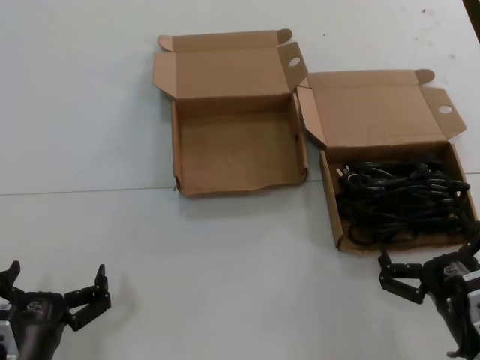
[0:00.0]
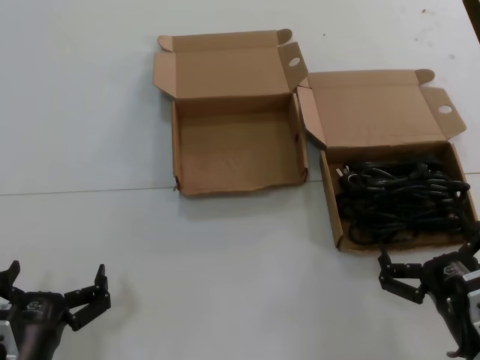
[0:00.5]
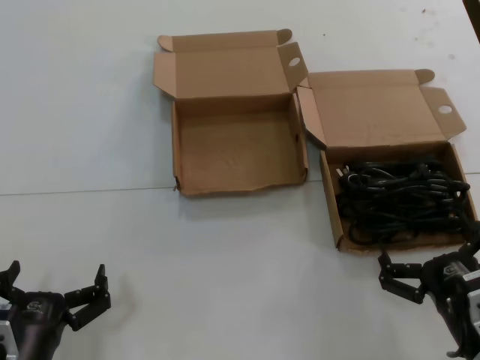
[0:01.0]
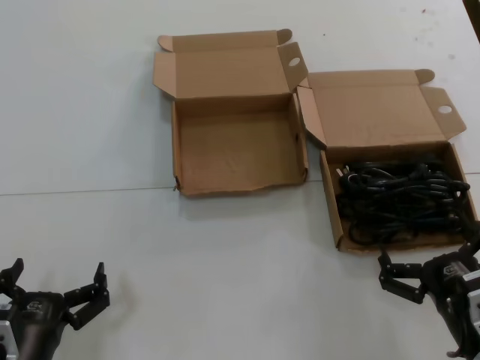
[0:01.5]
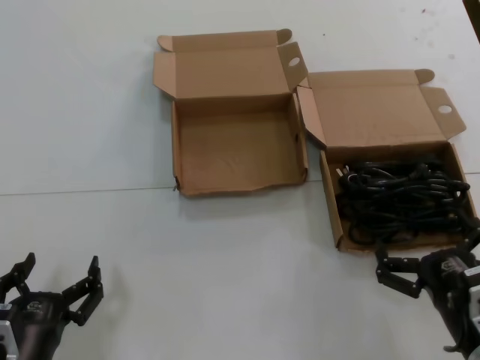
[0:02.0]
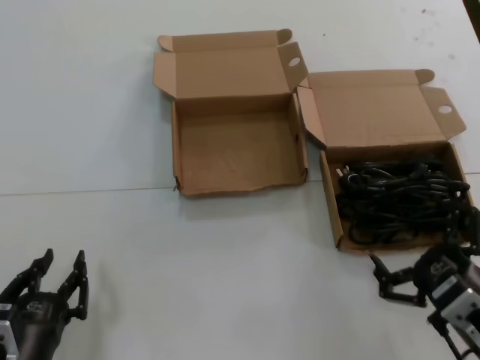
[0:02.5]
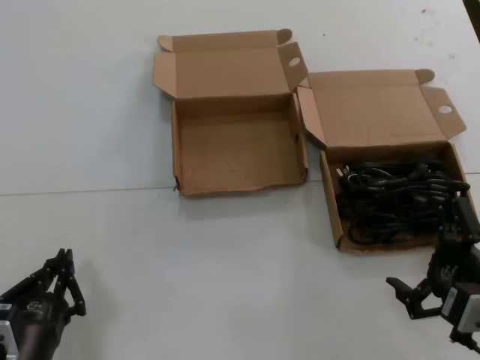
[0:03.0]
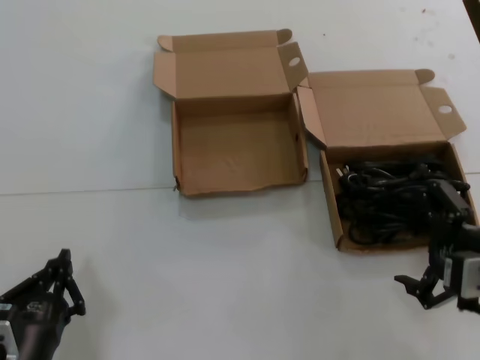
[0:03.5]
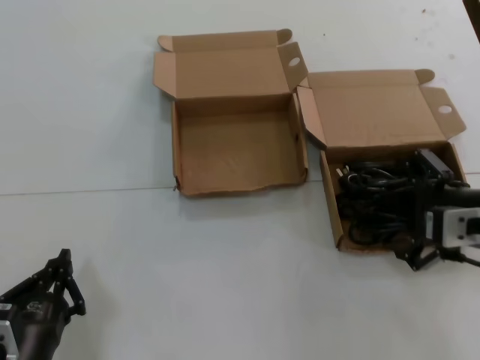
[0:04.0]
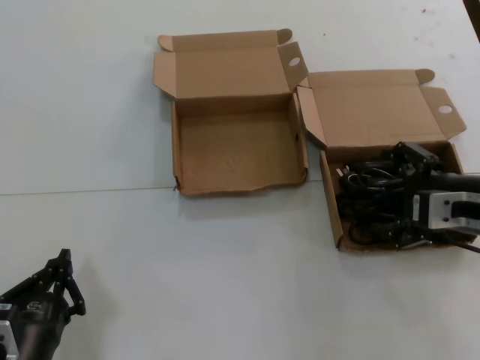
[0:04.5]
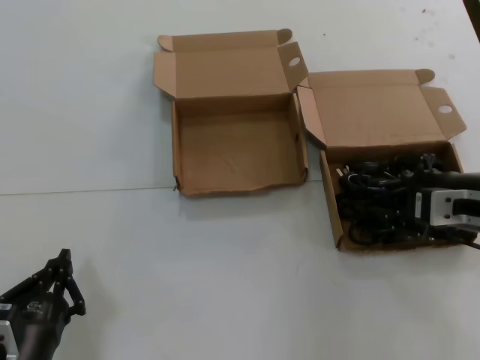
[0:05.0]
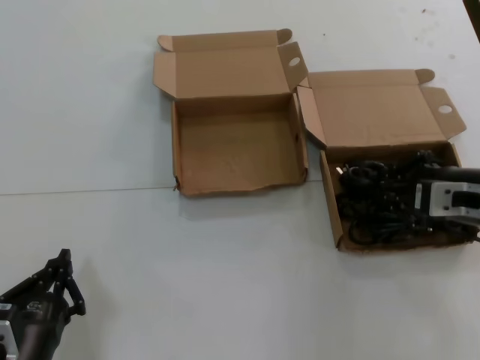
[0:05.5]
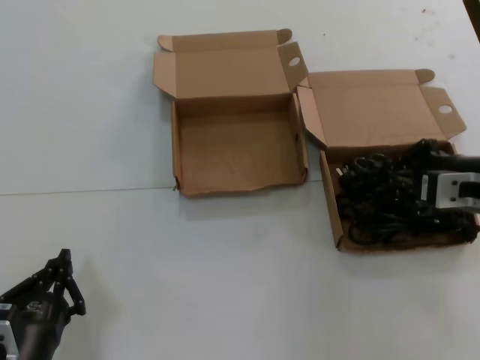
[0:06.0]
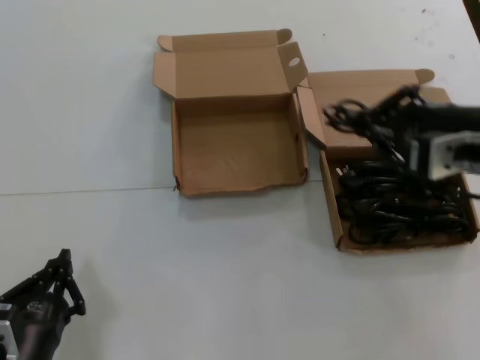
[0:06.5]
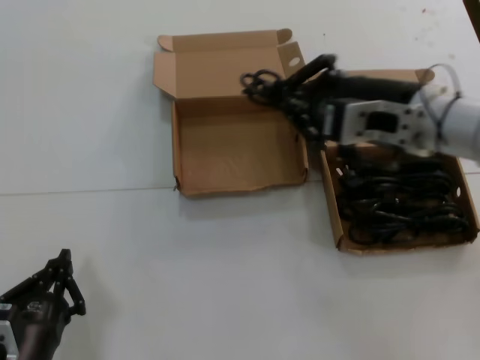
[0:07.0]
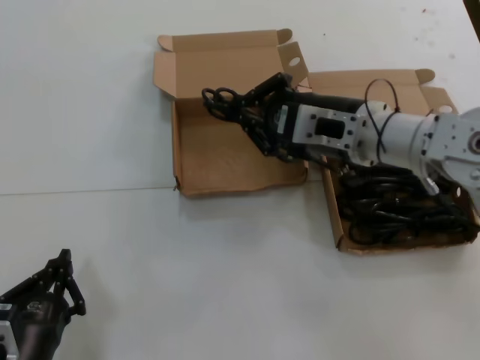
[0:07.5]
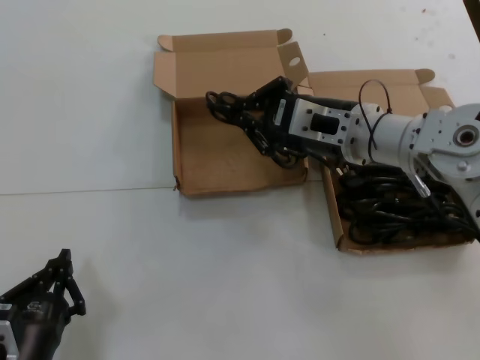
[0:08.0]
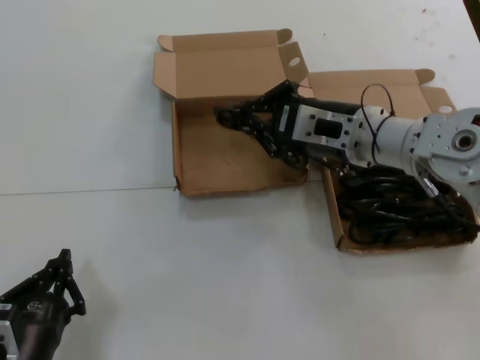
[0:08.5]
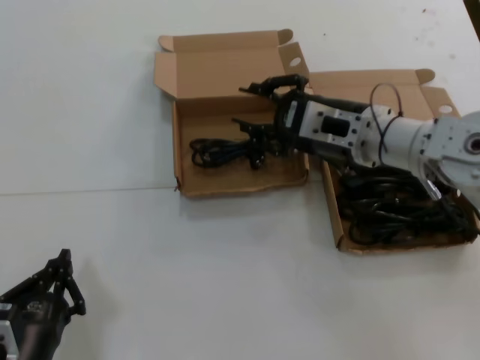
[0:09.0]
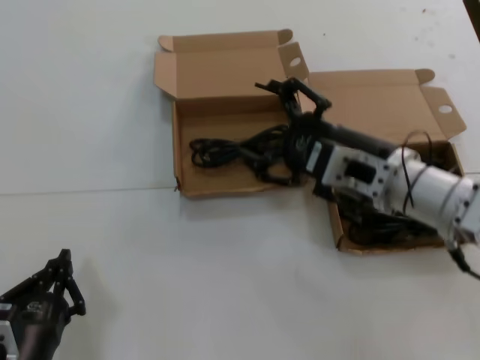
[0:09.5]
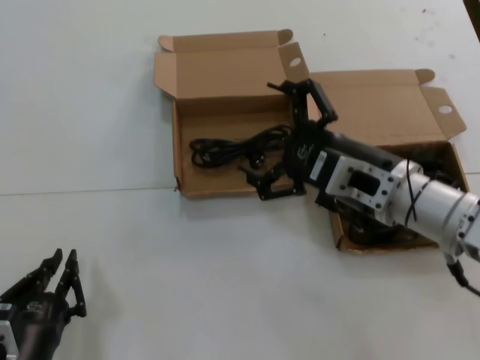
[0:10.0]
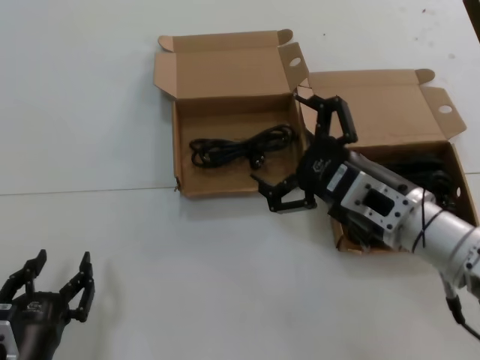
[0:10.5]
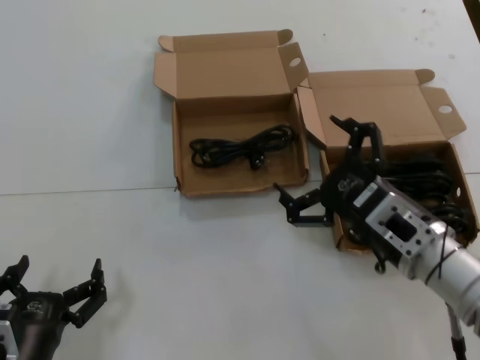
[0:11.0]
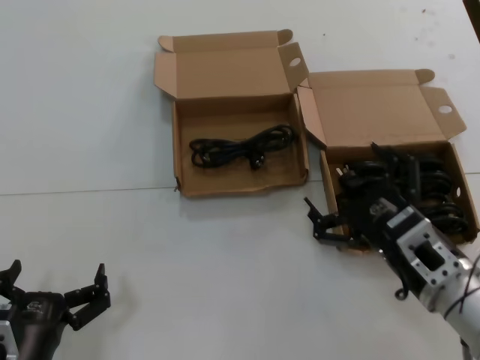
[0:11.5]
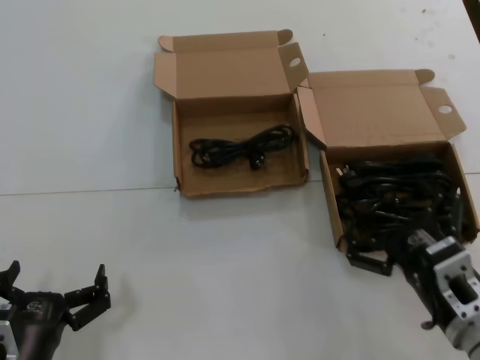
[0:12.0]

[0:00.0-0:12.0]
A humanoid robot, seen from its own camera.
Task of the whole recording: take the parts from the box containing them and put them into an empty box.
Step, 0:00.0 to 0:05.0: Grasp the data cable.
Step, 0:05.5 to 0:08.5: Place the data cable in the another box.
0:00.0 to 0:02.0: Both hands stay put.
0:02.0 to 0:04.0: The right hand is displaced upward and forward by about 20 cm.
0:04.0 to 0:06.0: The right hand travels forward by some 5 cm.
0:06.0 to 0:08.0: The right hand travels to the left by about 15 cm.
0:08.0 to 0:10.0: The right hand shifts roughly 10 cm backward.
0:10.0 to 0:12.0: The right hand is displaced downward and backward by about 15 cm.

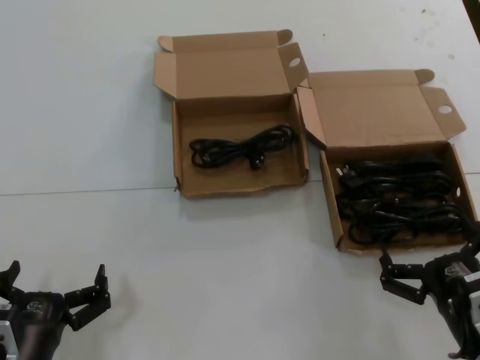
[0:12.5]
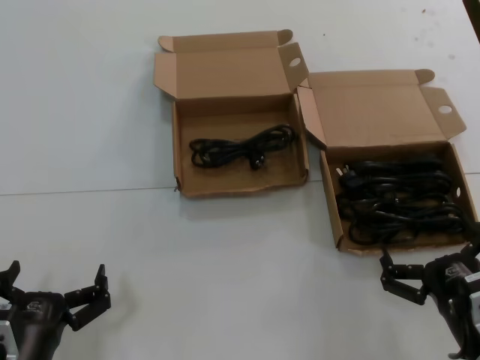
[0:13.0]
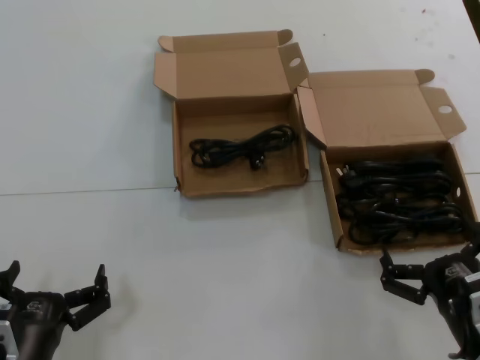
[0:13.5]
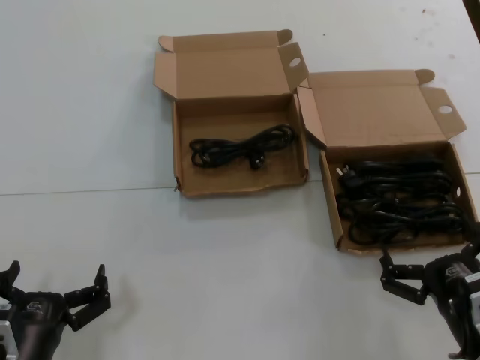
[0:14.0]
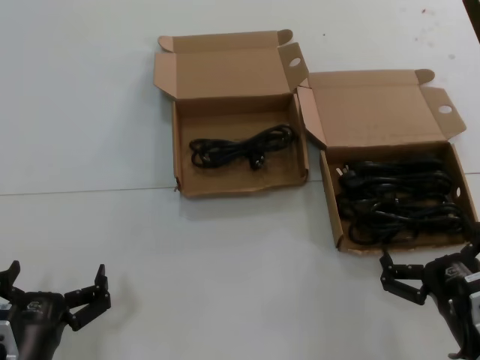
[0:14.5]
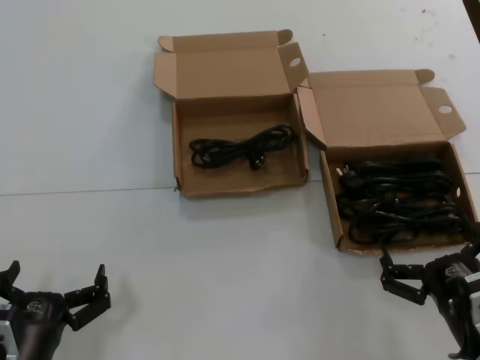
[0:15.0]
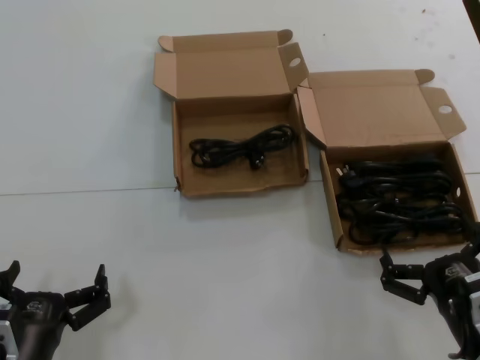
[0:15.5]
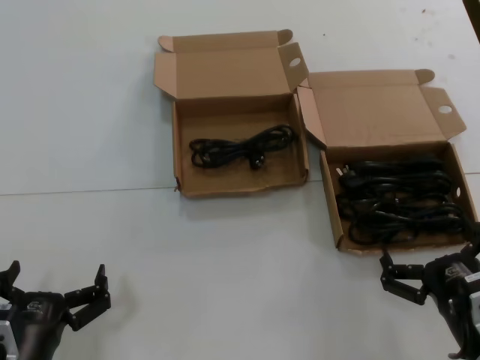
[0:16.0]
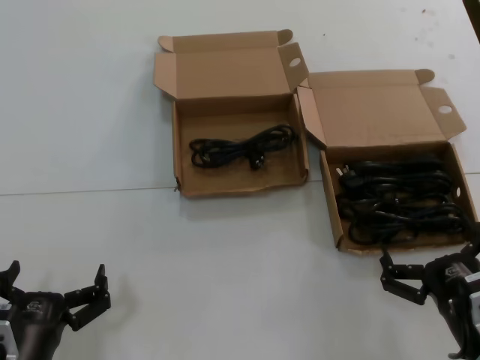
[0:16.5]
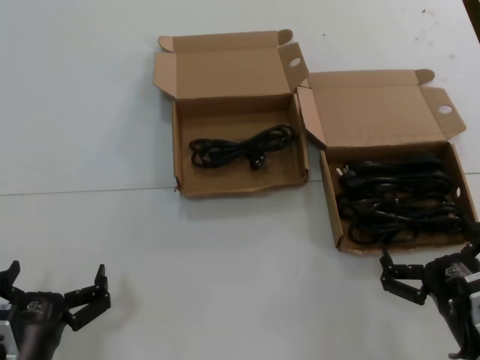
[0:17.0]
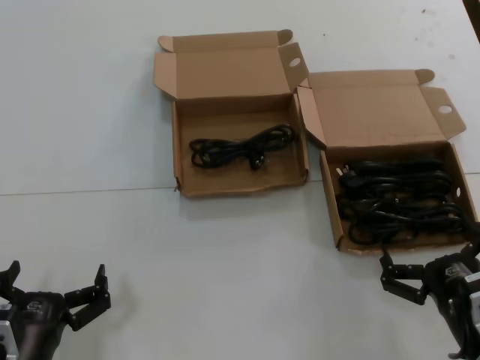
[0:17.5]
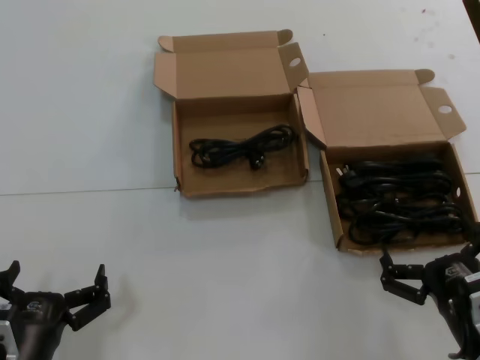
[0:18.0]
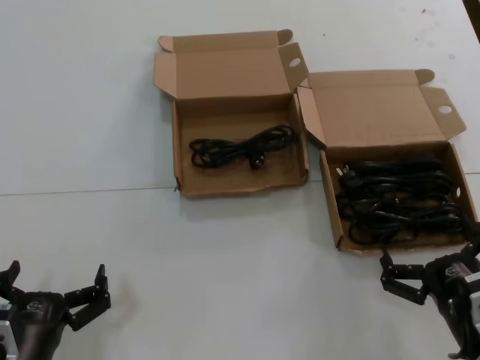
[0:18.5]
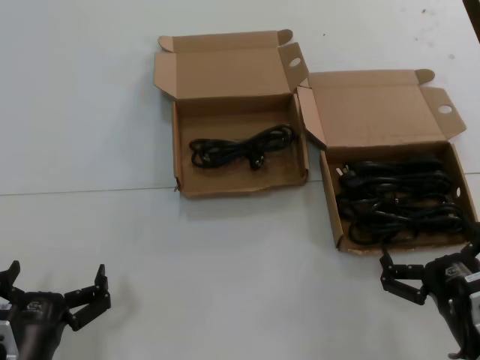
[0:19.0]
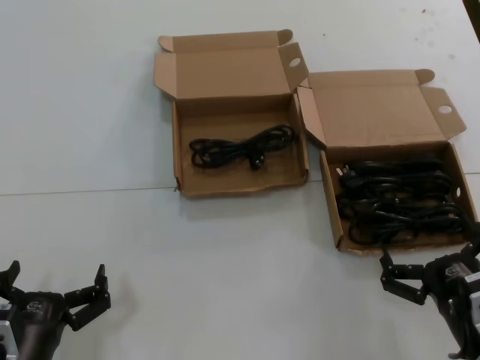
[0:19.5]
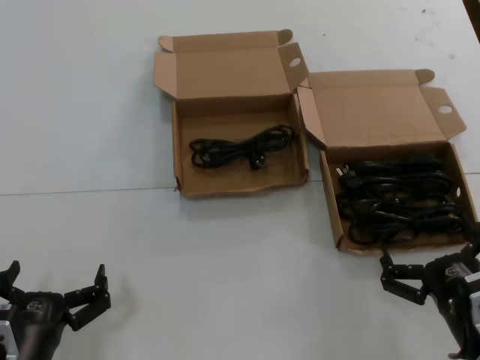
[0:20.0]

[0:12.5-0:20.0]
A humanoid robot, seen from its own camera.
Task of the whole recording: take the parts from the box containing them and put them into an empty box.
0:12.5 to 0:20.0: Both hands stay put.

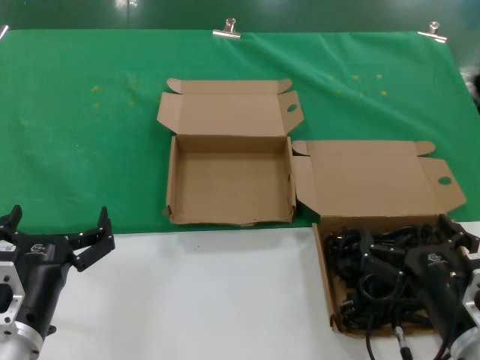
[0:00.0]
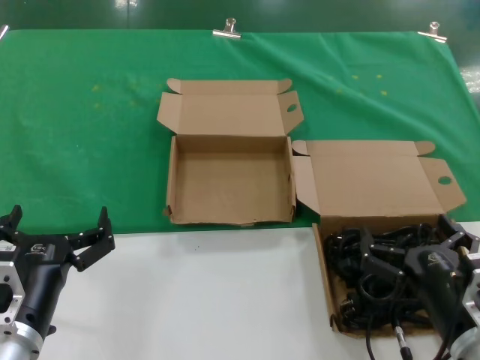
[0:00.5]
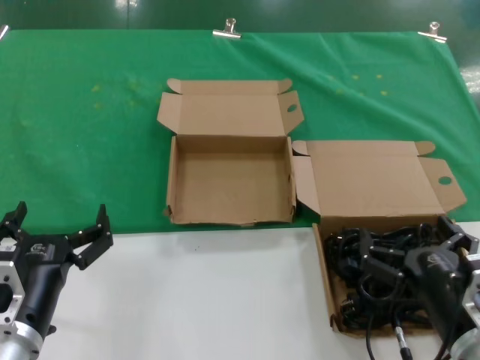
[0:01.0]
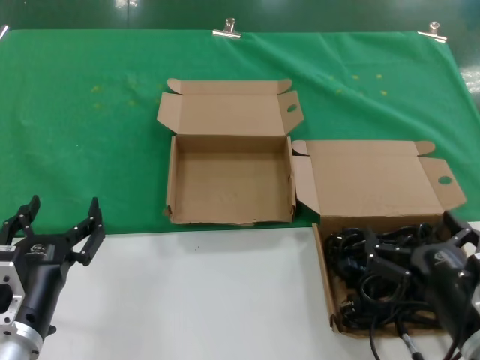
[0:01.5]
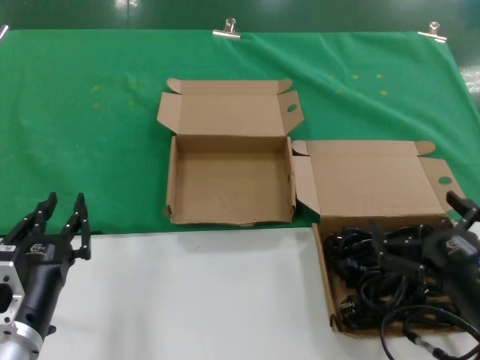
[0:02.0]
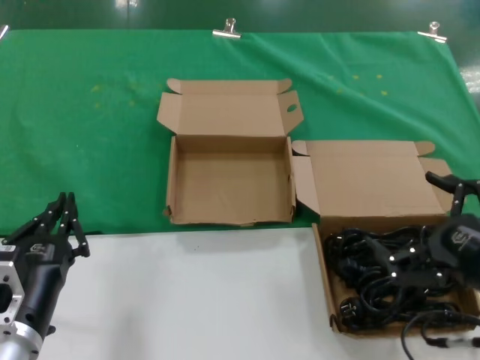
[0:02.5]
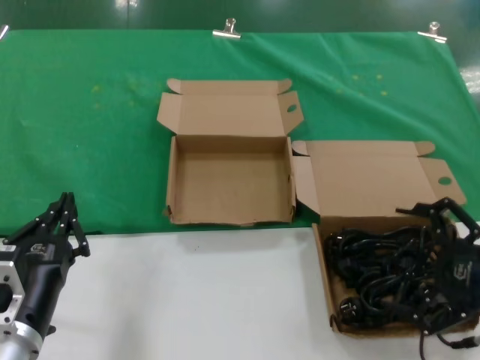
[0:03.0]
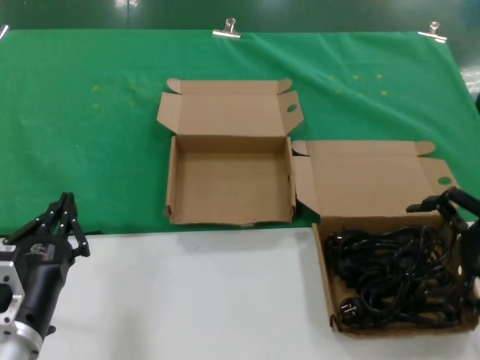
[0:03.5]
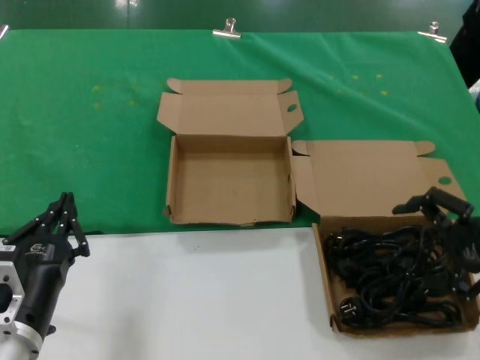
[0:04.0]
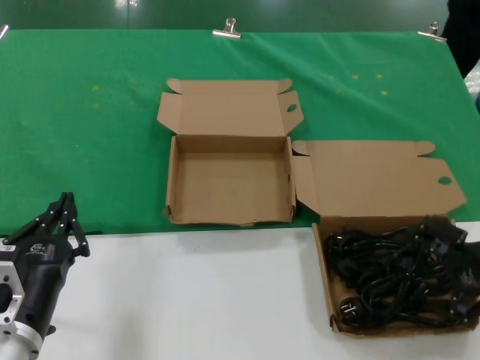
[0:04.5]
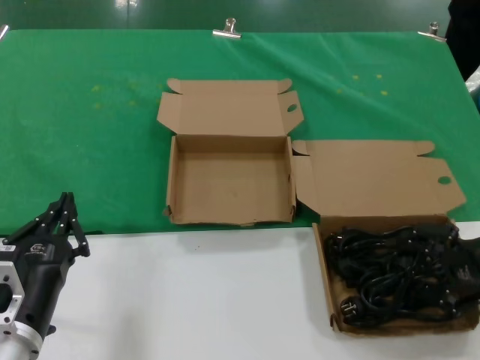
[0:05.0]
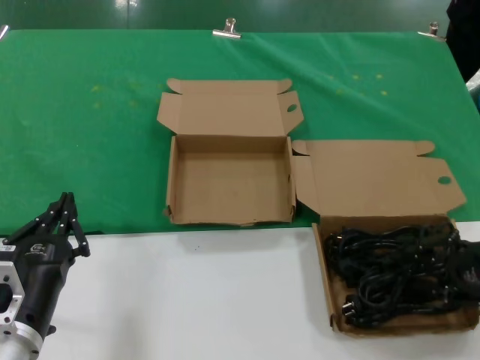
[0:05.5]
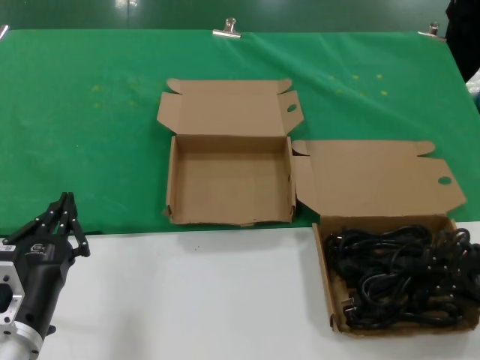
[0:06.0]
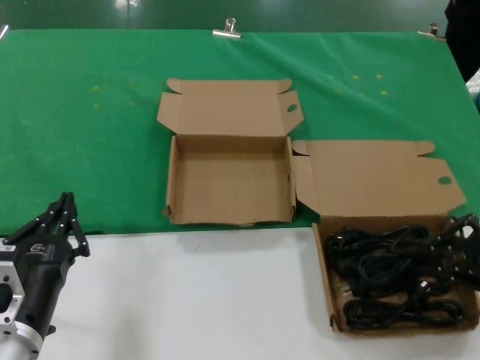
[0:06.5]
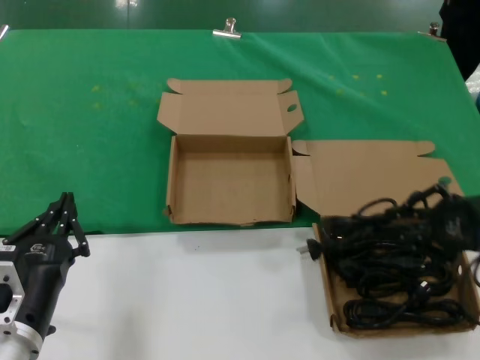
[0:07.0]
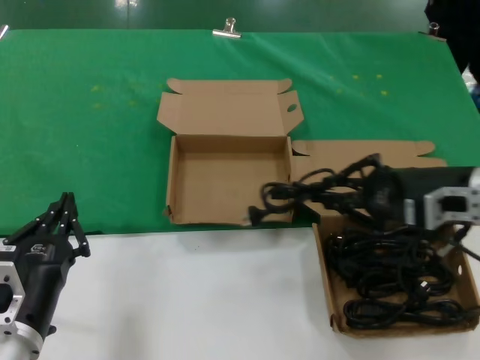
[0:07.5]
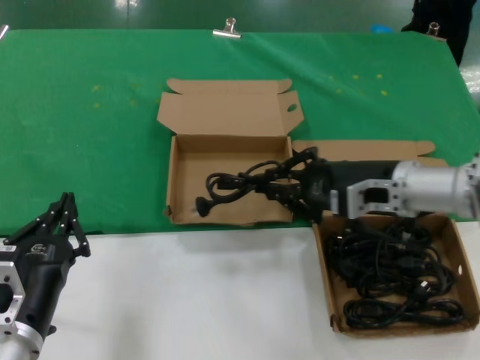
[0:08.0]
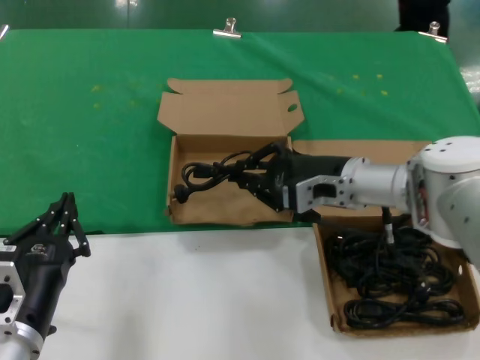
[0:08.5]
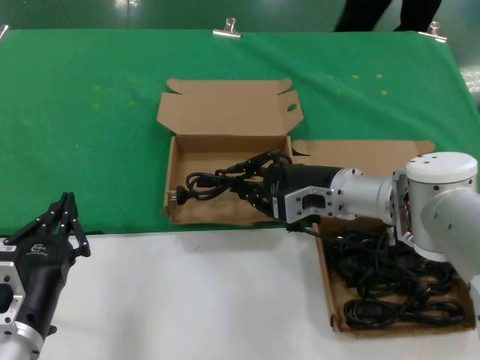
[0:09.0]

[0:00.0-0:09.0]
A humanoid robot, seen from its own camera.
Task of the whole recording: take the parts from the box containing them and put them into an empty box.
Step, 0:00.0 to 0:05.0: Grasp the data cable.
0:00.0 to 0:02.0: The hands make only small movements.
0:02.0 to 0:04.5: The right hand shifts roughly 20 cm to the right, forward and upward.
0:04.5 to 0:07.0: The right hand moves roughly 5 cm.
0:07.0 to 0:09.0: The right hand shifts roughly 25 cm to the left and forward.
